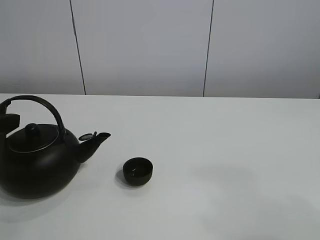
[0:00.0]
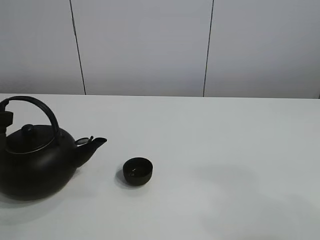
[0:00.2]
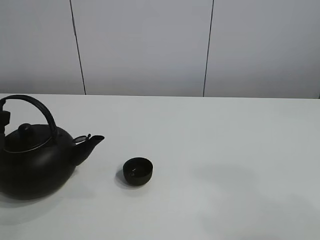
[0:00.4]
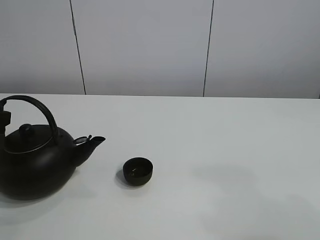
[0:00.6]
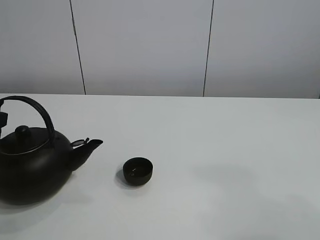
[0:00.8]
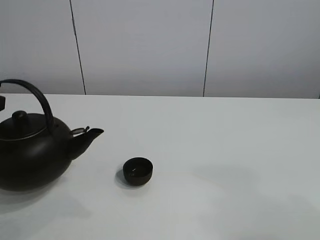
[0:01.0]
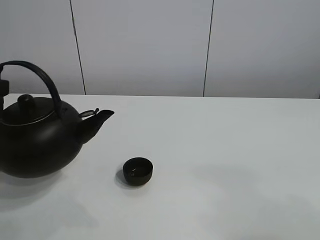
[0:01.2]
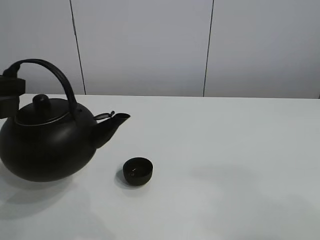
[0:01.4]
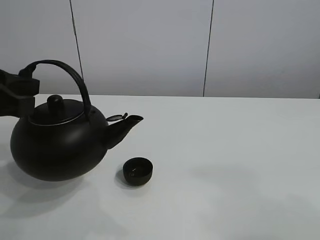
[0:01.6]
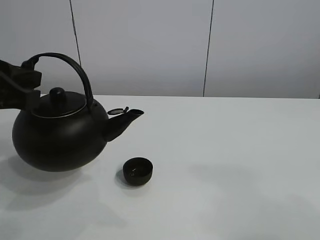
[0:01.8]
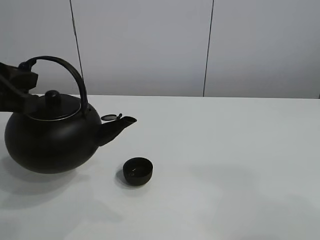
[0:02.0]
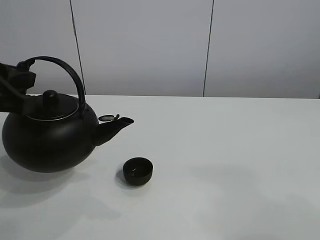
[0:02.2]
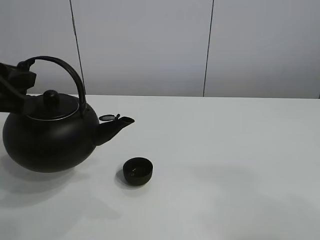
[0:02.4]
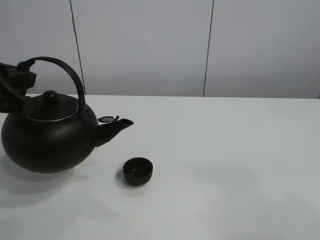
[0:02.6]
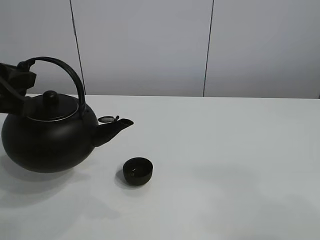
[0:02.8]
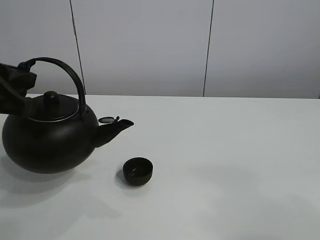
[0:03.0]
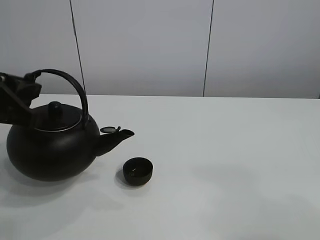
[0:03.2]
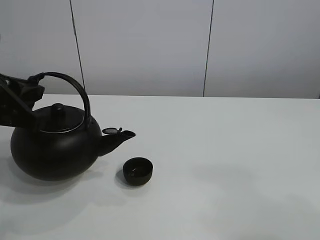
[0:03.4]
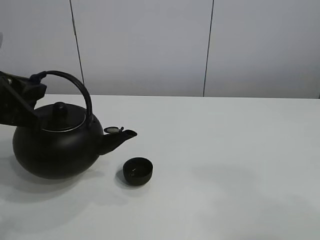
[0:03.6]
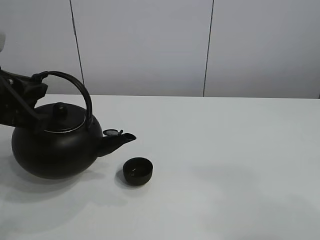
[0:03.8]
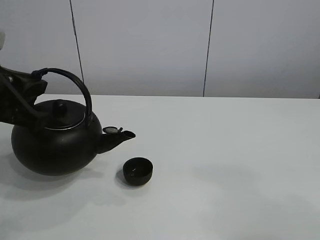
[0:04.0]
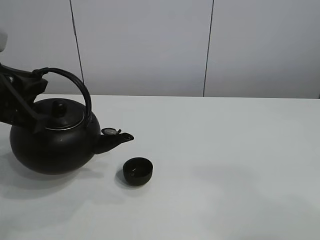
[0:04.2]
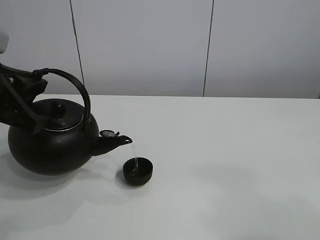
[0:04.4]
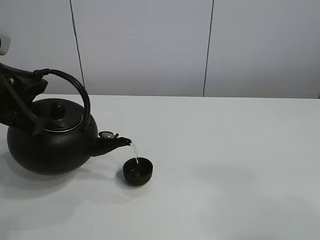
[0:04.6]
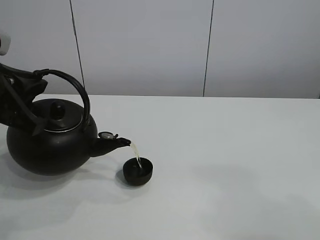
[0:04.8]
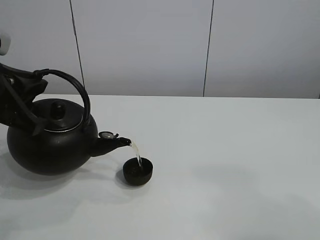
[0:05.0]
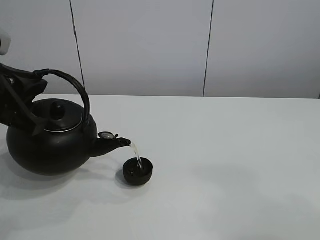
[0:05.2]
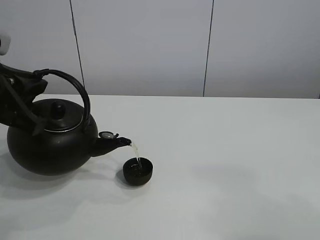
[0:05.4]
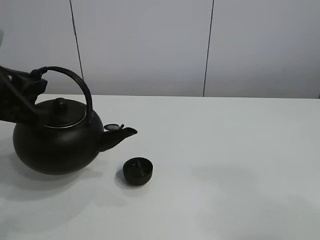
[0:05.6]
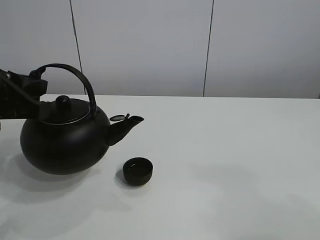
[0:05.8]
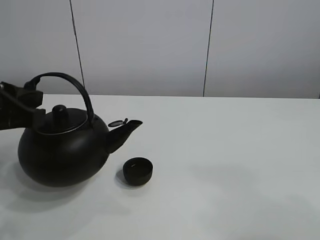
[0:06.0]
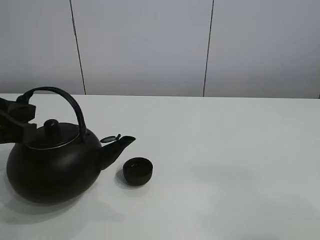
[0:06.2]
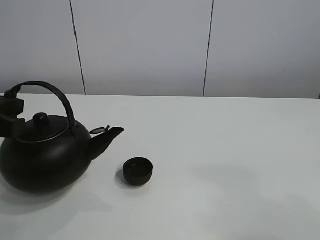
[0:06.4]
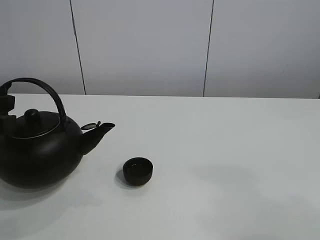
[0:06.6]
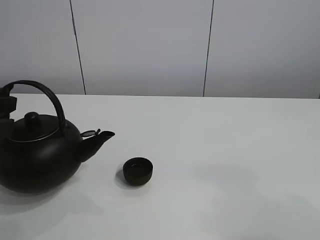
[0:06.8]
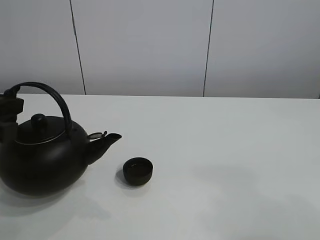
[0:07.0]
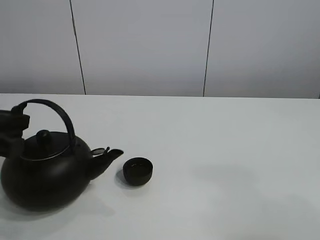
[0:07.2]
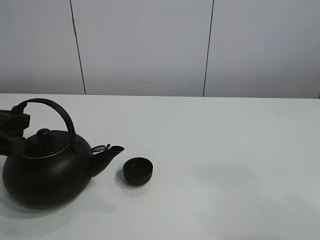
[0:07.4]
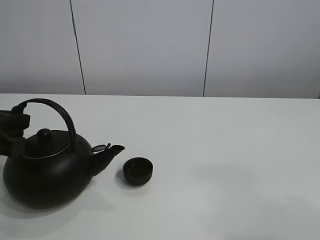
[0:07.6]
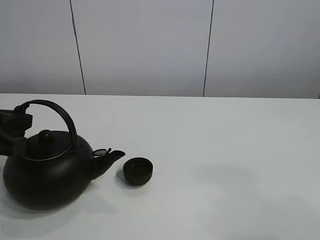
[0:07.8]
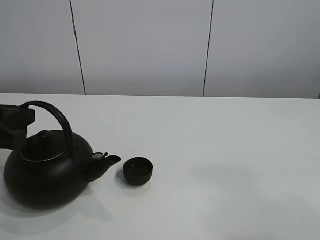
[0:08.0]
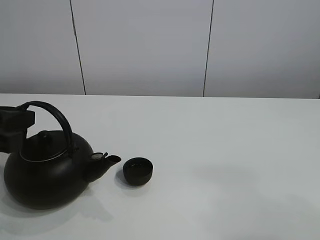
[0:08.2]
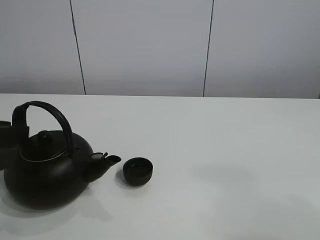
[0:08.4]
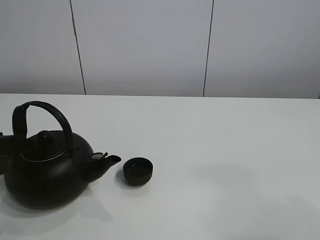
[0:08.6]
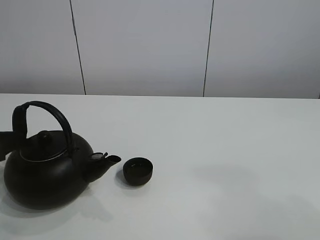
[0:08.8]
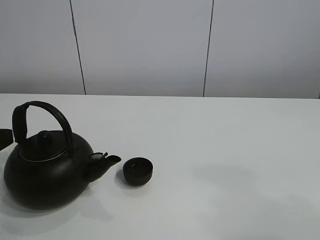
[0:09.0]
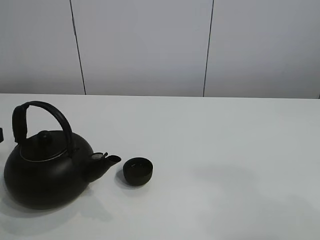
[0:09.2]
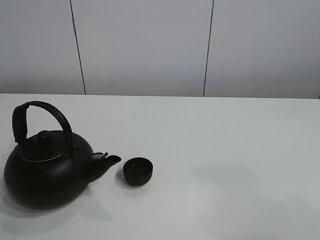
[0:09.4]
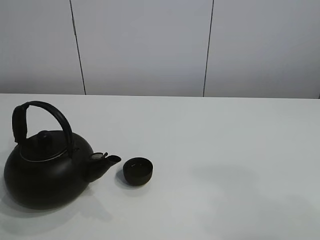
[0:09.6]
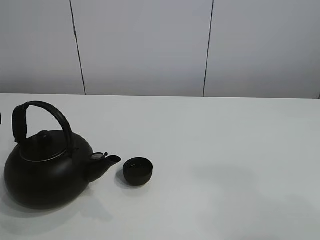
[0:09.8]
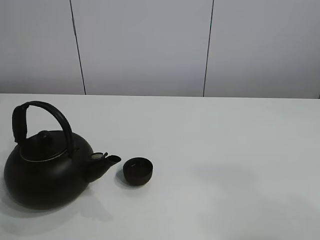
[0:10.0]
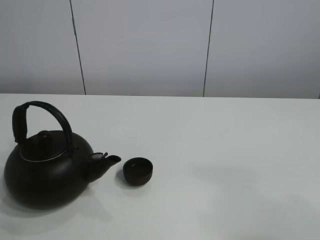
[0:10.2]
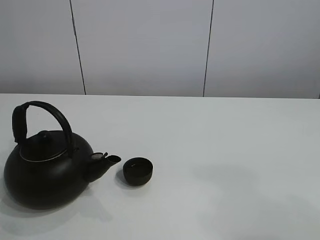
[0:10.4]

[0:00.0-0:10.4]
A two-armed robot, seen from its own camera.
Task of the whole recording: pour tea into the teacup.
Step, 0:00.6 to 0:05.6: Pour tea into the teacup with the left gripper.
0:00.0 to 0:01.4: The left gripper goes some 5 cm upward, and closes.
0:01.4 to 0:03.0: The grippers make only small movements.
0:03.0 to 0:04.4: The grippers move only a little.
0:06.0 to 0:07.4: The grippers make only small movements.
0:07.4 to 0:09.0: The left gripper opens up.
